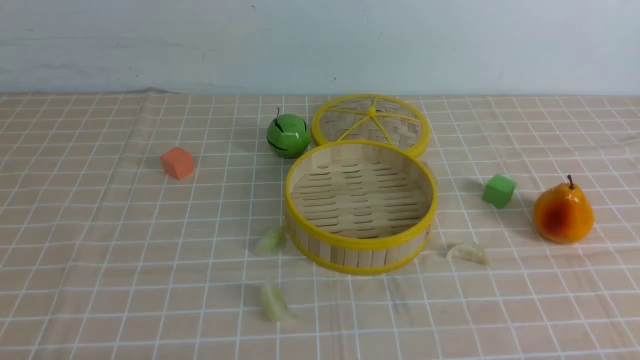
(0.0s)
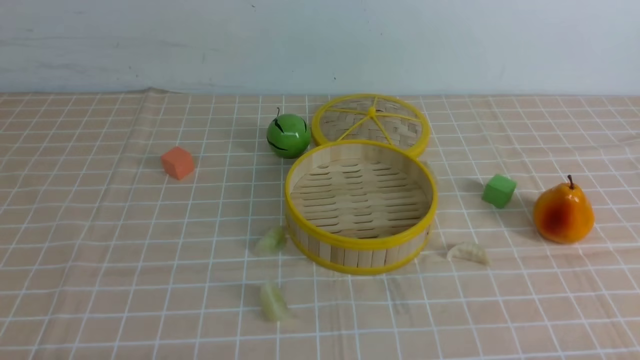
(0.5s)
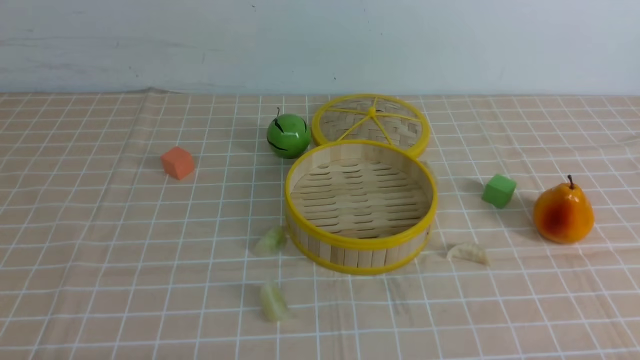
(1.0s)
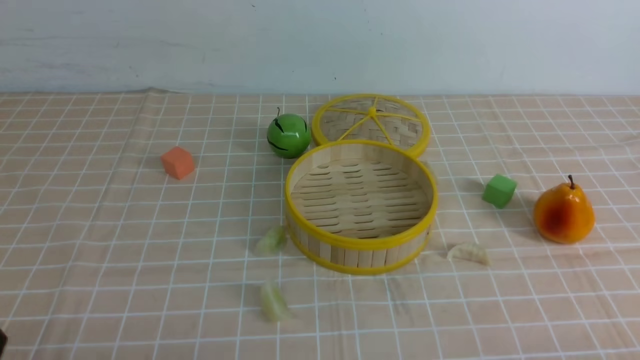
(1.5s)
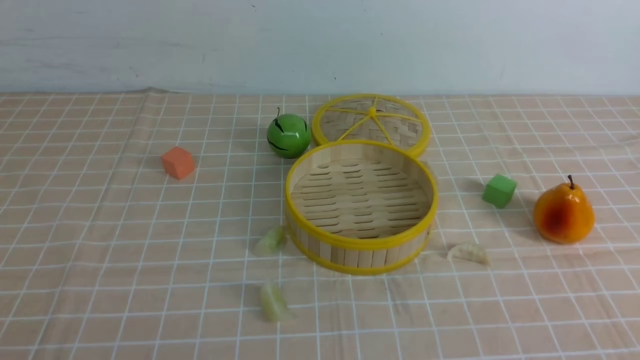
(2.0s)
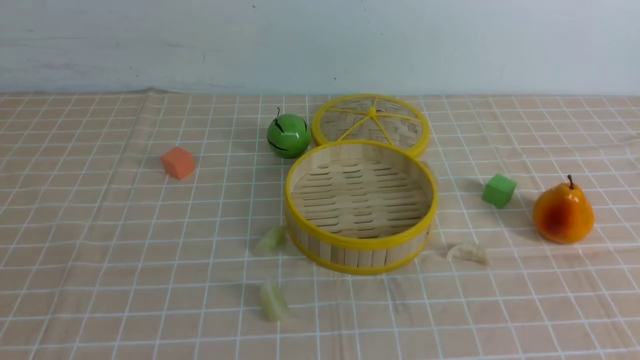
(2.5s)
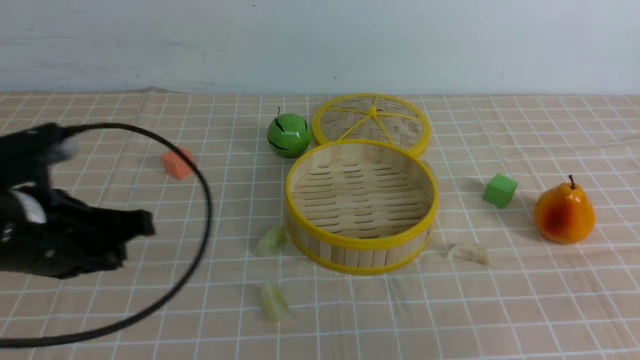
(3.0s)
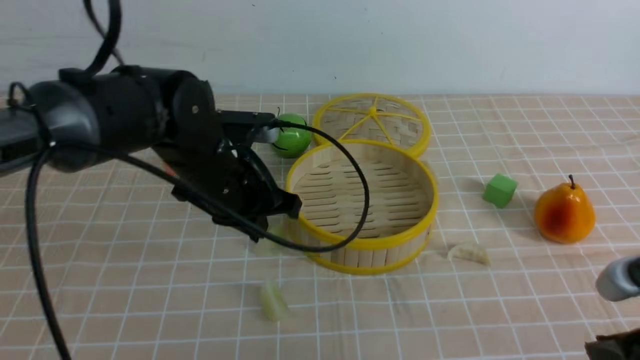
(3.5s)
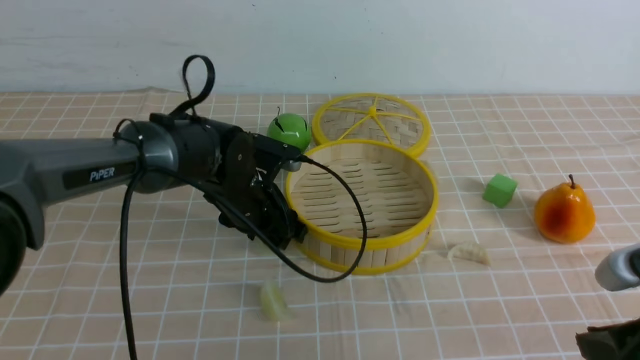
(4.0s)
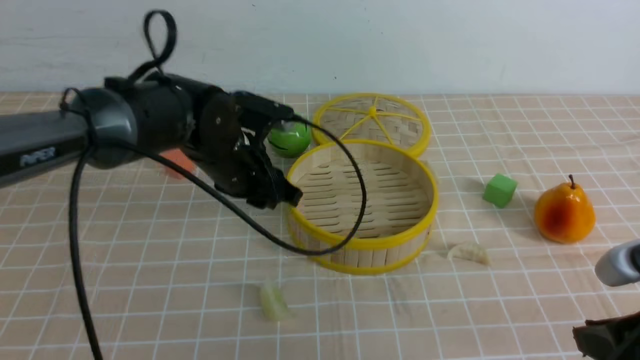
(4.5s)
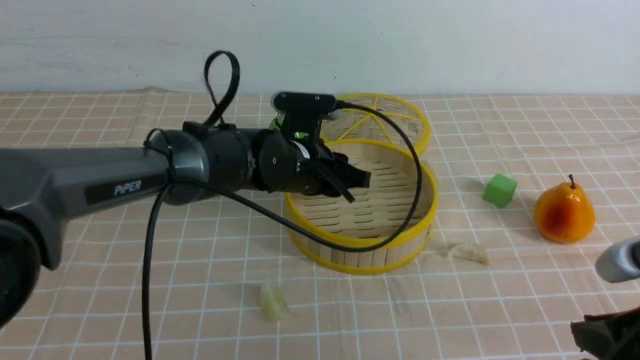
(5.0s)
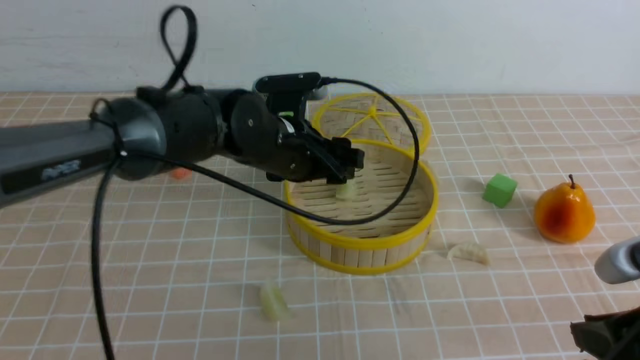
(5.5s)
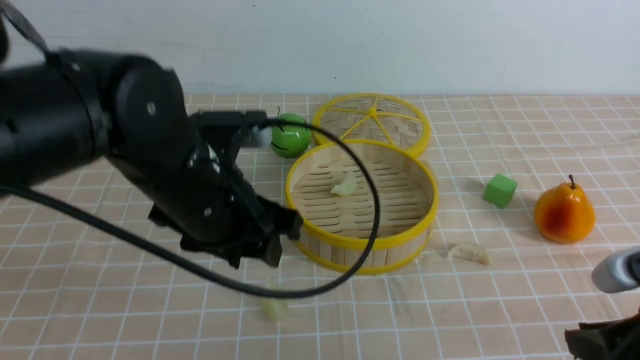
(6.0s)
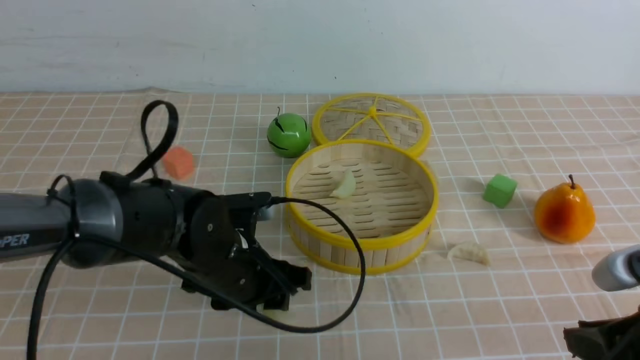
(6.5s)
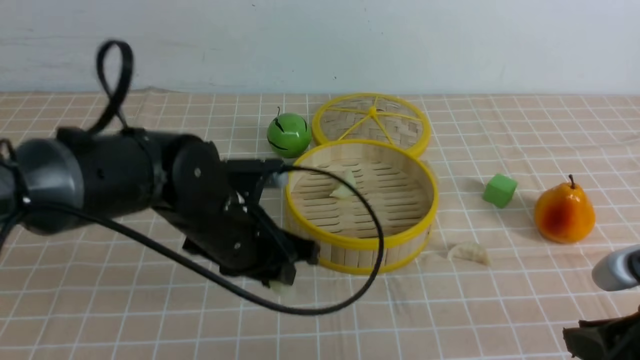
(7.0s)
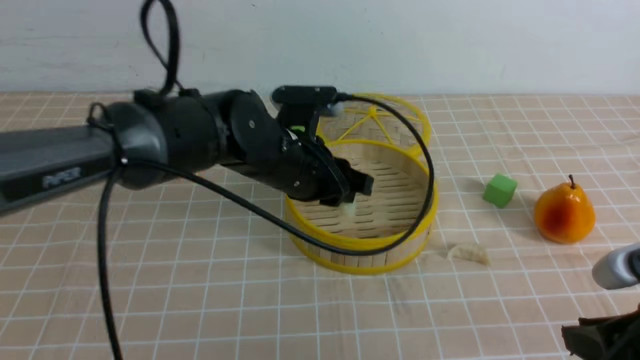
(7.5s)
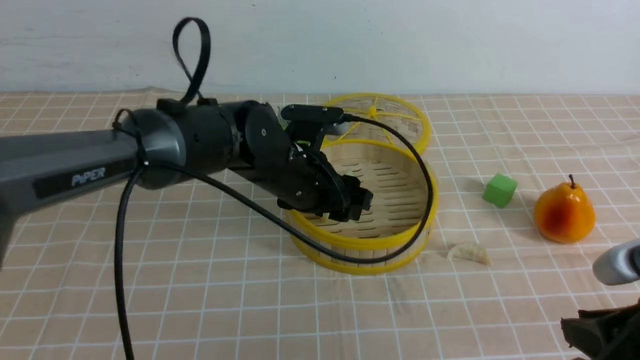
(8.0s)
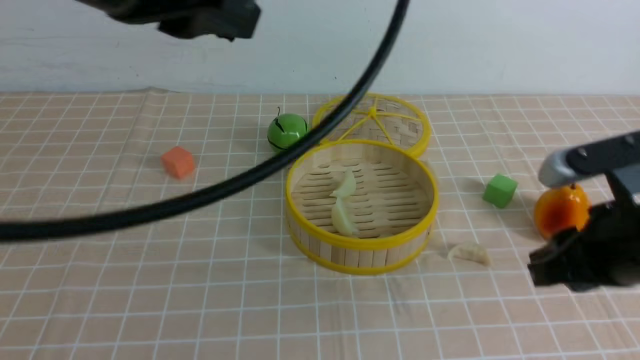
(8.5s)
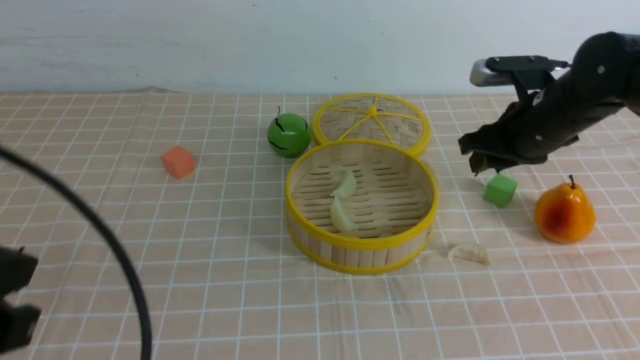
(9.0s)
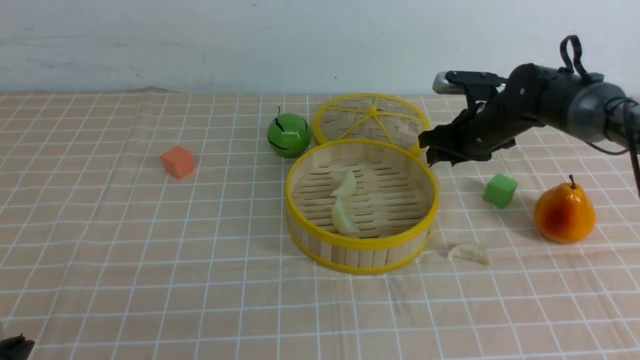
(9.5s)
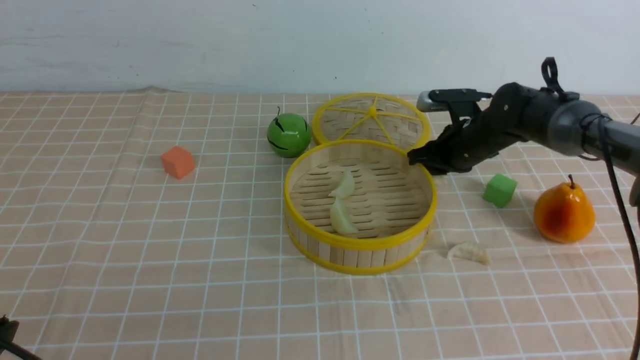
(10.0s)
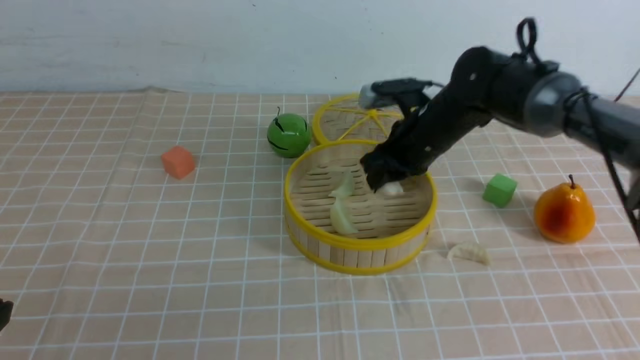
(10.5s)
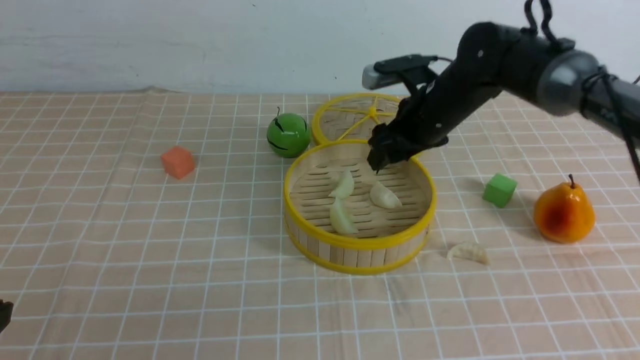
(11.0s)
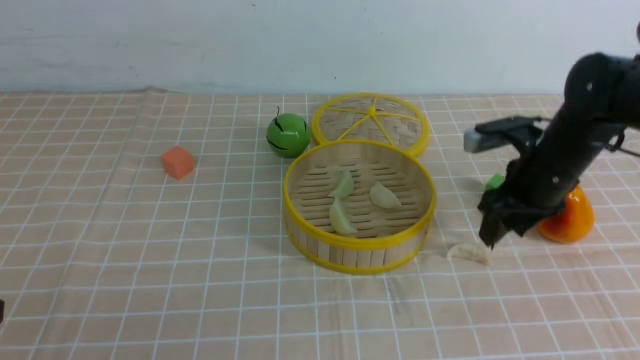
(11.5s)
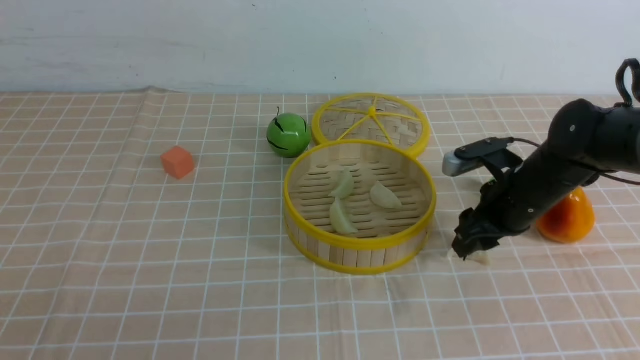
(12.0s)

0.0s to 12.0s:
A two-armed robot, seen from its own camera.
Task of the whole recording: put the dumplings into the steamer on the table with the brown tablecloth.
Step, 0.0s to 4.0s: use the left arm to grab a dumpling.
Step, 4.5s to 5.5s: use the left arm to put the dumpling into the steamer.
Step, 6.0s to 6.5s: use the left arm to grab a dumpling.
Step, 7.0s to 8.0s: use the left arm to put the dumpling into the steamer.
Step, 8.5s to 9.5s: use the right arm to grab a dumpling.
Step, 10.0s to 11.0s: use the right arm to put the dumpling into the steamer.
2.0s to 4.0s: The left gripper travels forward and to the right by about 40 cm, and opens up, while the right gripper moves forward and to the left, some 15 cm.
4.0s to 6.0s: The left gripper is displaced backward and upward by some 15 cm.
6.0s to 8.0s: The left gripper is displaced forward and to the right by approximately 10 cm, reaches some 10 cm downward, then returns, and closes, then opens again.
8.0s to 10.0s: The right gripper goes roughly 35 cm forward. Meanwhile the left gripper heads backward and to the left, covering roughly 35 cm, and closes up.
10.0s to 12.0s: The right gripper shifts approximately 10 cm backward.

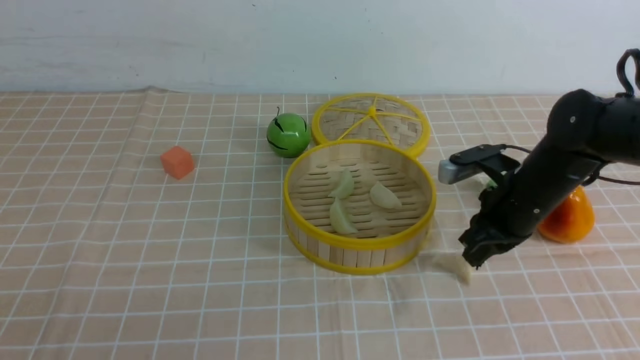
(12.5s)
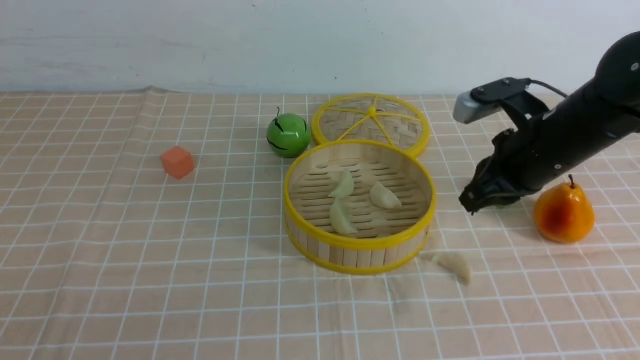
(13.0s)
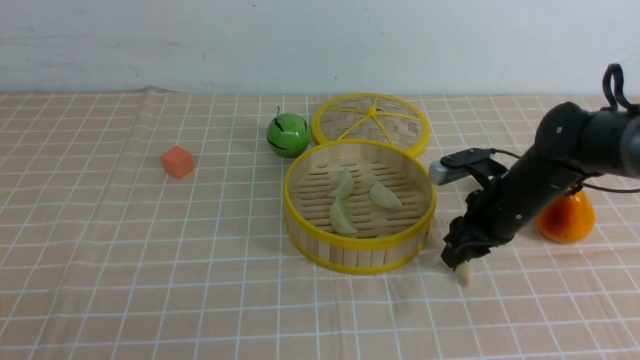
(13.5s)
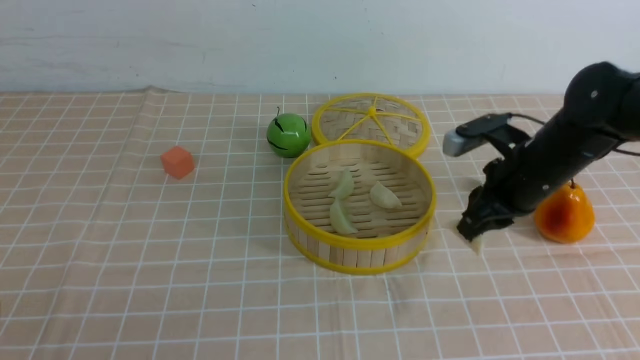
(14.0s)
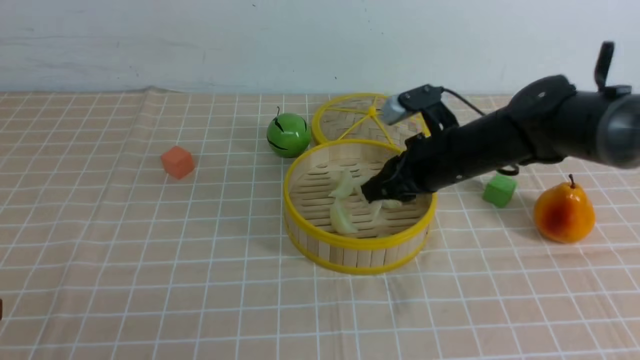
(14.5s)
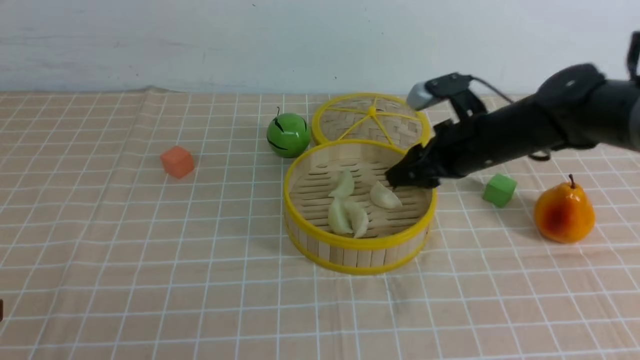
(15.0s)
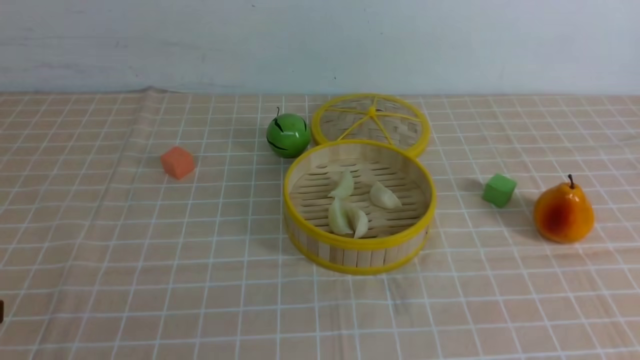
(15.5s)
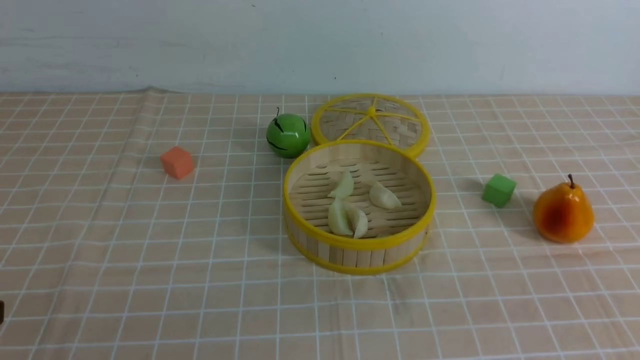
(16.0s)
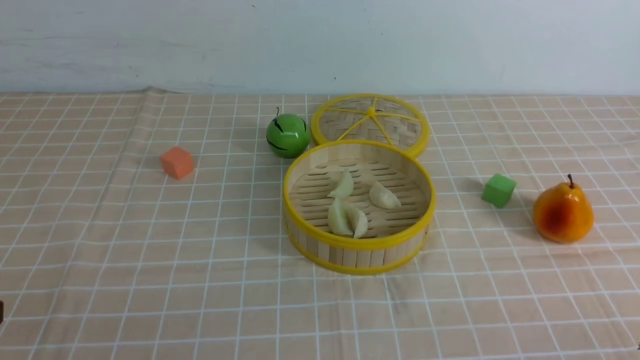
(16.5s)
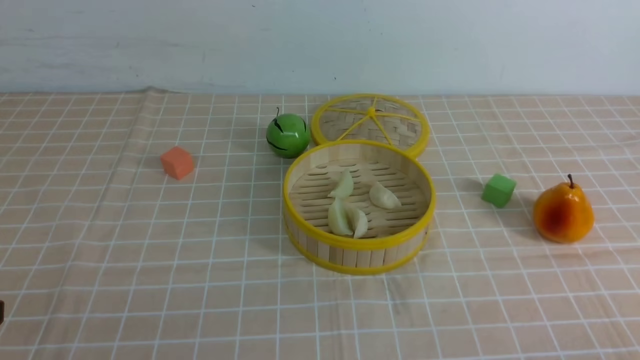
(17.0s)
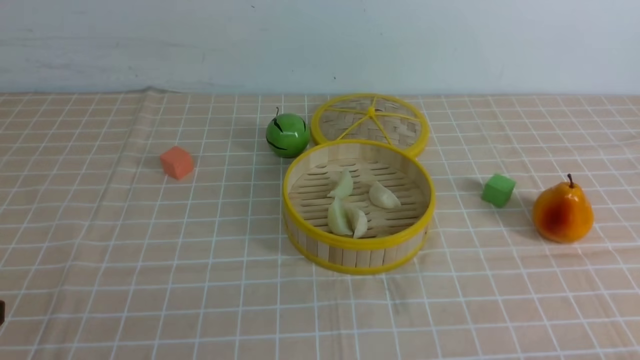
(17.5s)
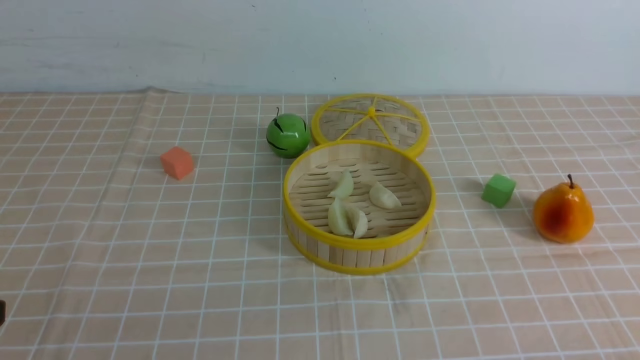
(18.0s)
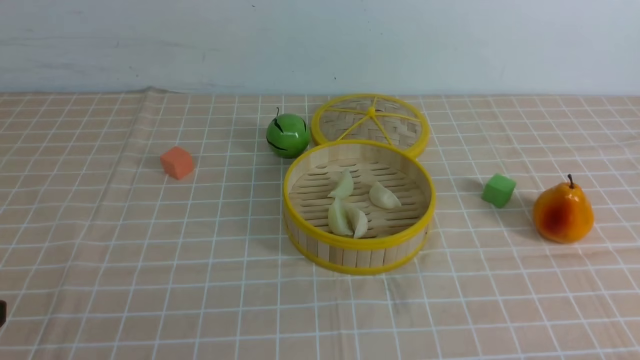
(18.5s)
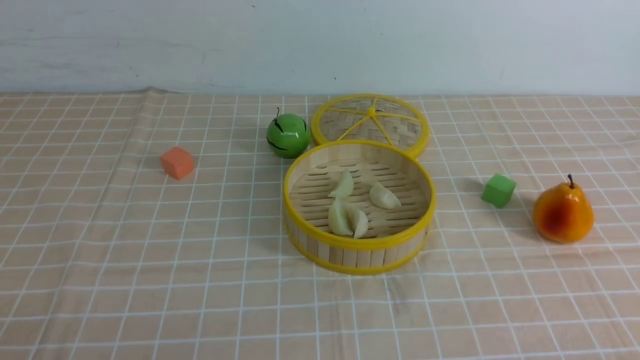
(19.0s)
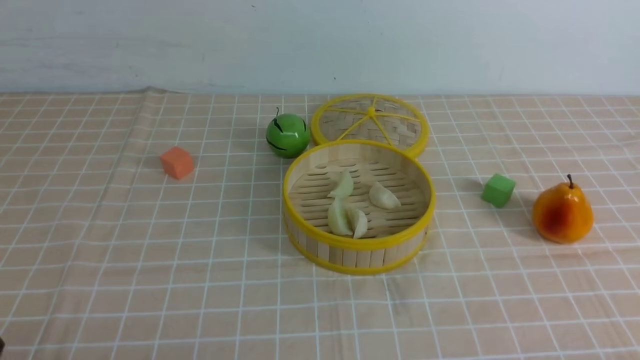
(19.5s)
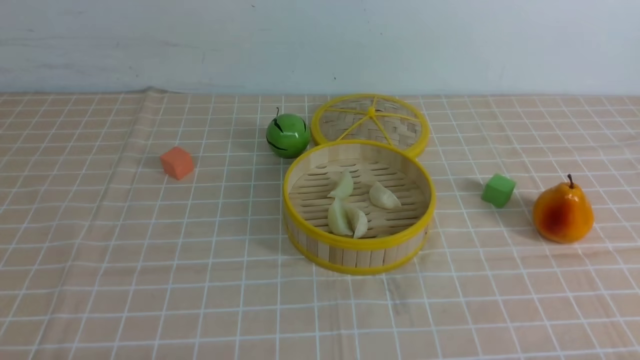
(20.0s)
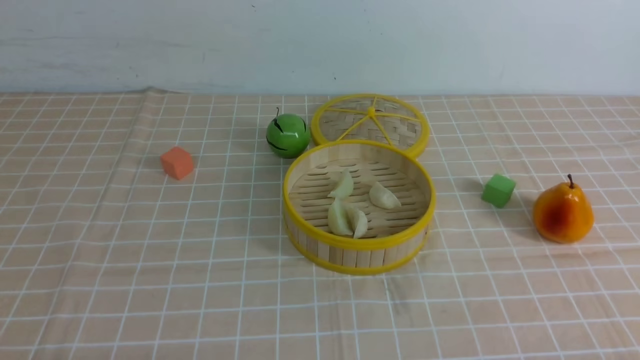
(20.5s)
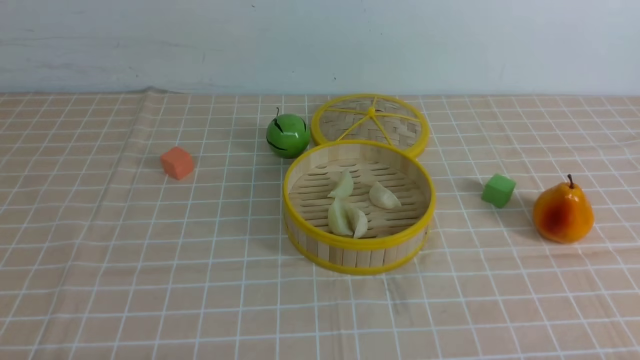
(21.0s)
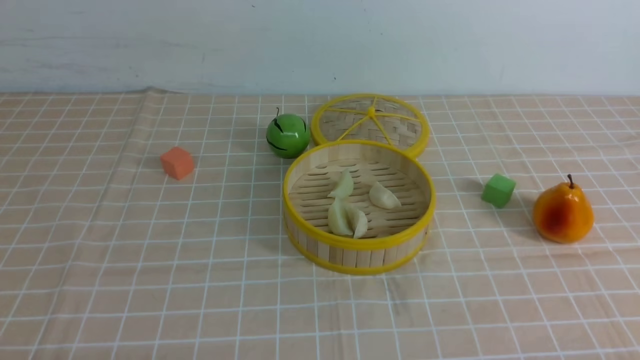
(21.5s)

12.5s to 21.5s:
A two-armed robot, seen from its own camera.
Task of the whole recording: put the dumplings into the steamer on the table with the brown tablecloth.
Step, 14.0s to 15.0s: use the right arm to put the dumpling into the steamer.
12.5s to 14.5s: The right gripper swings up and down, roughly 5 cm each way, with 2 reversals.
14.5s to 17.0s: The right gripper is displaced backward and to the right by some 40 cm.
